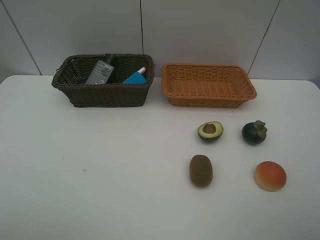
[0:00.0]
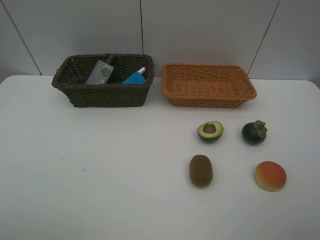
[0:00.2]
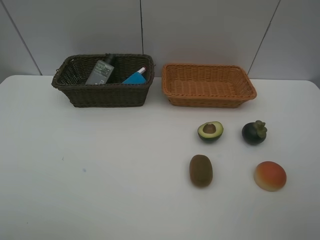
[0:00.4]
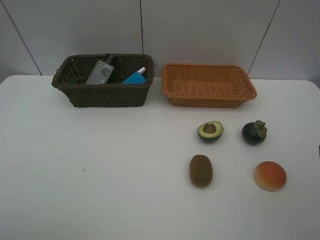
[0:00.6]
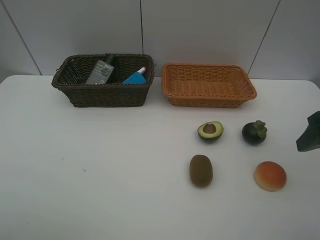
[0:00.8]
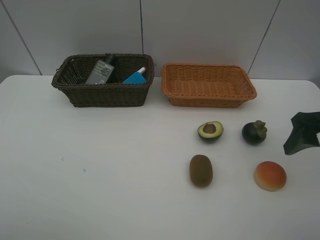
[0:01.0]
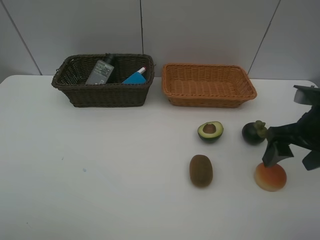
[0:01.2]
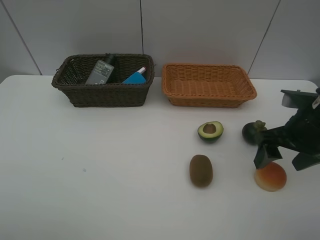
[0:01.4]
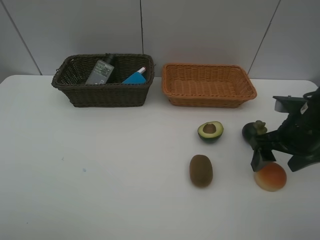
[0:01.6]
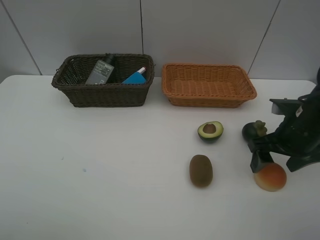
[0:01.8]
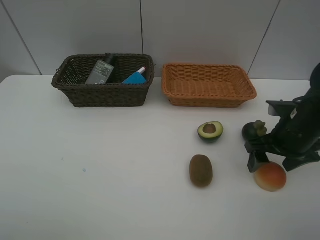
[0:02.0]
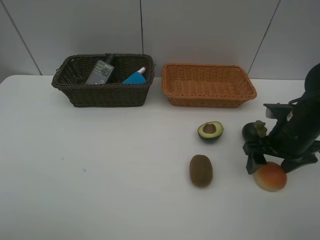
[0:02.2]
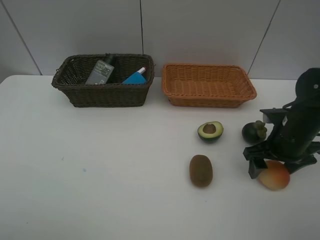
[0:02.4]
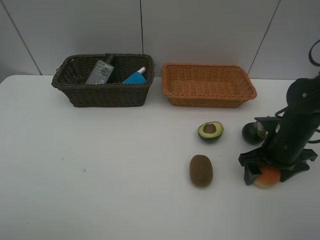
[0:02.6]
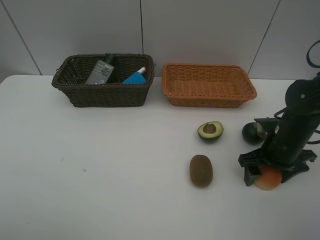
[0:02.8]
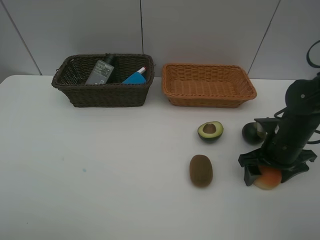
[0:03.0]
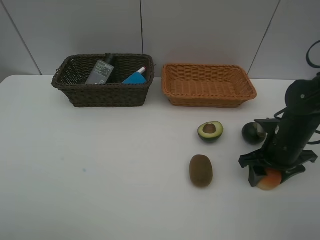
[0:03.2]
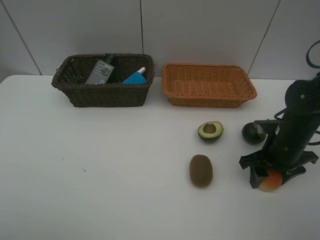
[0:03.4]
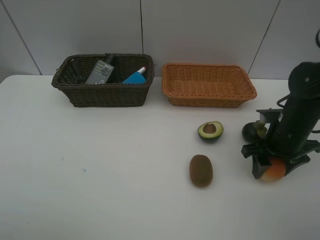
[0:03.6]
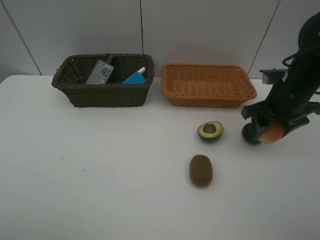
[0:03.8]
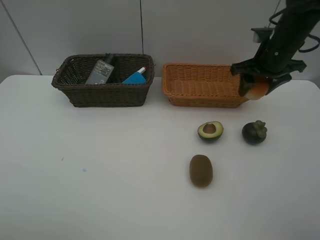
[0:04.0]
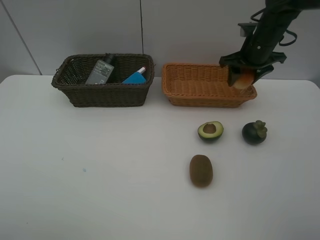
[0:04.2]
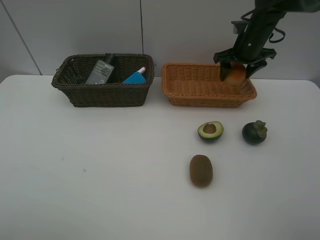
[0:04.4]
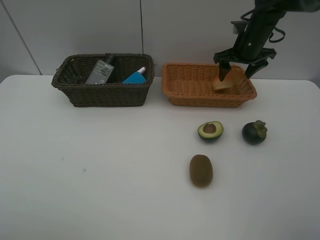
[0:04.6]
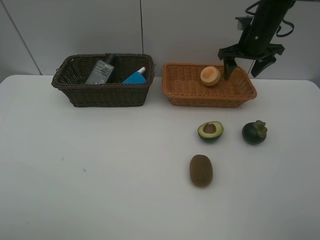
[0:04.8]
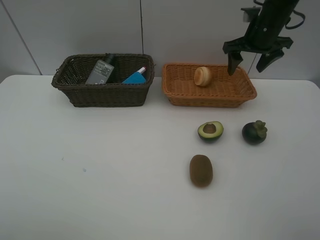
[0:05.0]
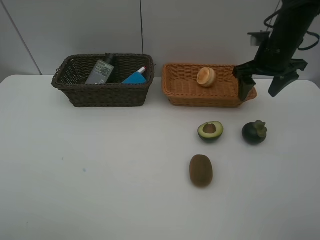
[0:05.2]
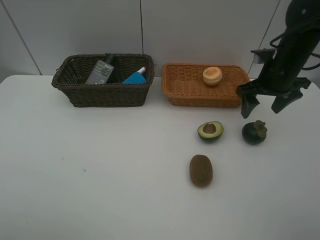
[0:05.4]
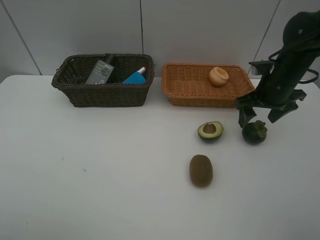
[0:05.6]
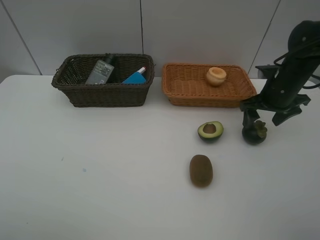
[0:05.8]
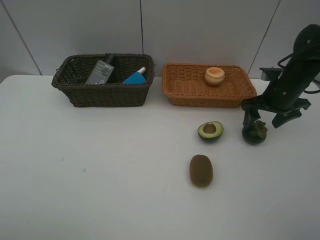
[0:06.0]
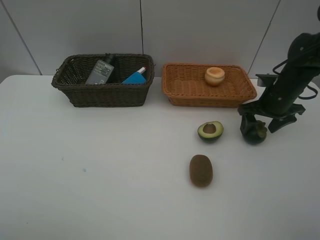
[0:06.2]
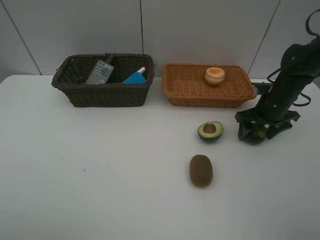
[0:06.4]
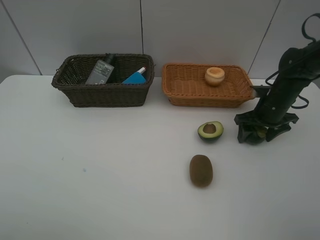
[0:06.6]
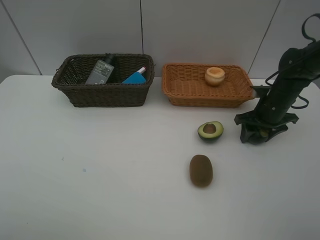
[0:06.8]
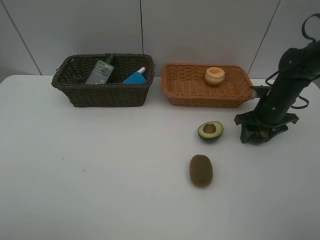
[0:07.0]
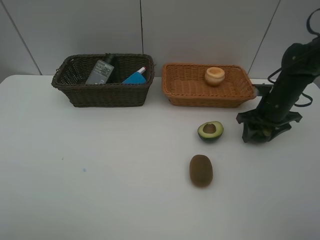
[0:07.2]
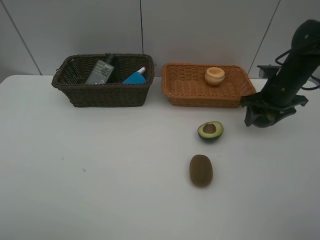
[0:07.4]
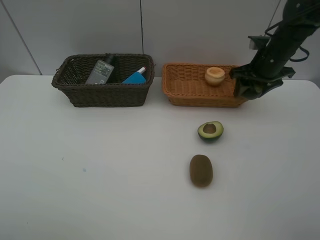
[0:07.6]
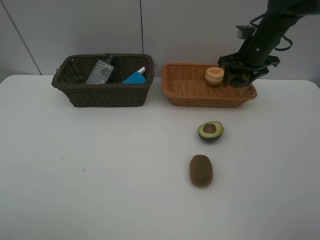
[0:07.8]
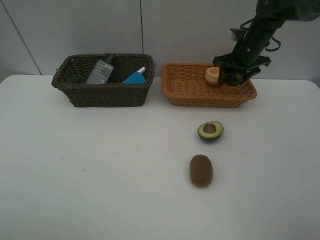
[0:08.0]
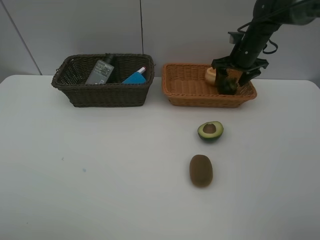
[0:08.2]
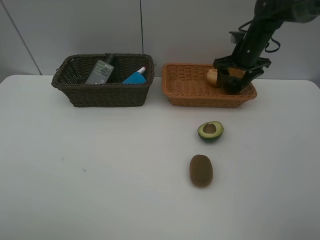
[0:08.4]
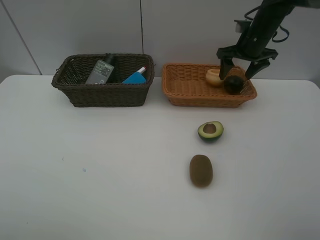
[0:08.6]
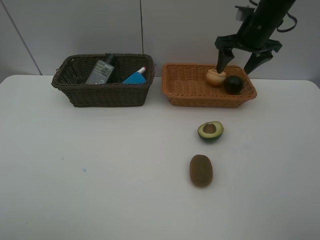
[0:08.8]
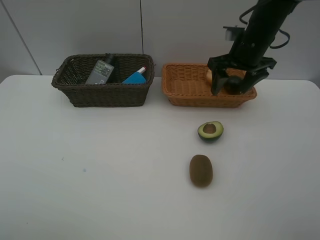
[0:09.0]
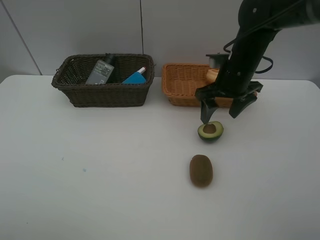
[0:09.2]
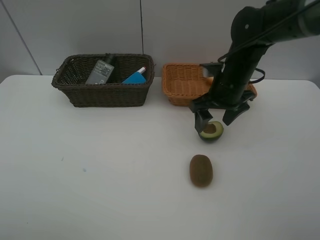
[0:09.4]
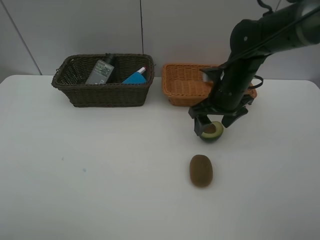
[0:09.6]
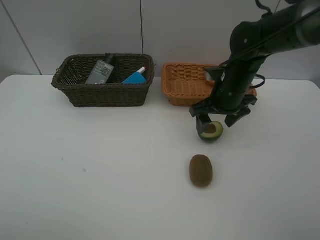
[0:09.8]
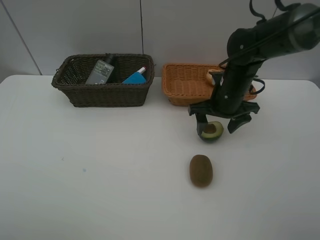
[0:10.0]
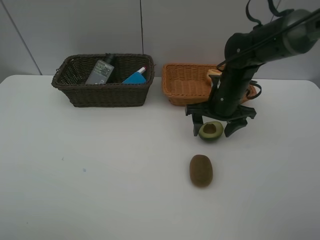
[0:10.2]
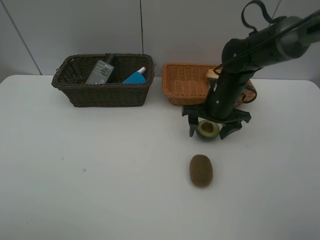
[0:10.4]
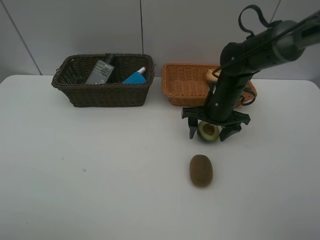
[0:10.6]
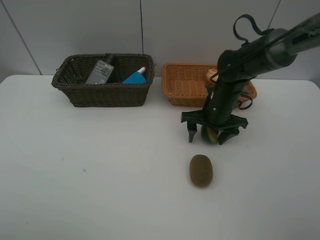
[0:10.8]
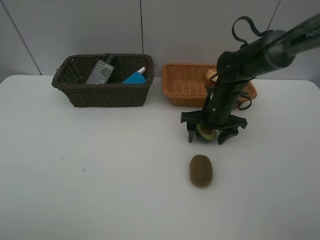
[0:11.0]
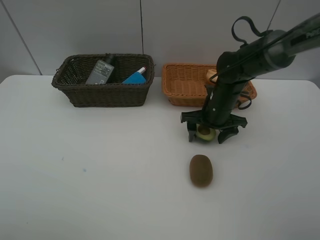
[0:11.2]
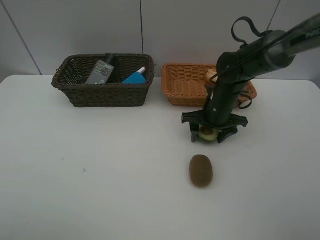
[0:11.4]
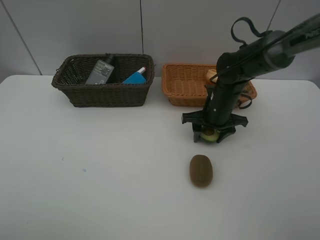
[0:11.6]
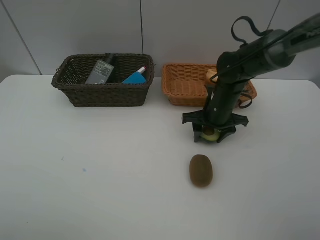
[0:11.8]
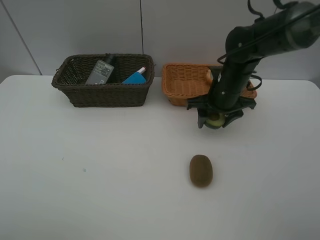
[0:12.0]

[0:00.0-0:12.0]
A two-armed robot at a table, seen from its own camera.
Task of the whole recording: Place multiple objects separately in different baskets.
Step, 0:00.0 to 0:03.6: Pick up egg yolk pastry with right gripper.
Step, 0:03.8 to 0:04.6: Place the egg yolk pastry in the light basket with right gripper.
Step, 0:04.8 to 0:07.2: Pick up the mangosteen with right gripper.
Step, 0:07.4 to 0:08.4: Place the mangosteen in the light basket with right gripper.
Step, 0:08.6 to 0:11.8: Pick up the avocado with right gripper.
0:00.0 to 0:01.6: The right gripper shifts about 25 cm forward and downward.
0:01.6 to 0:03.0: The right gripper is displaced downward by about 5 cm.
0:03.0 to 0:04.4: The right gripper is displaced forward and upward by approximately 25 cm, and closes, then opens again.
0:04.4 to 0:06.0: The right gripper goes roughly 15 cm backward, downward and to the right.
0:06.0 to 0:07.6: The right gripper travels forward and upward by approximately 10 cm, and closes its fingers.
0:07.6 to 0:09.0: The right gripper moves to the left, some 5 cm, and opens its fingers.
0:09.0 to 0:10.4: The right gripper heads downward, covering some 10 cm.
0:10.4 to 0:12.0: The right gripper closes.

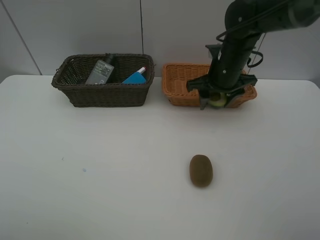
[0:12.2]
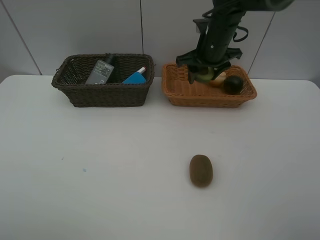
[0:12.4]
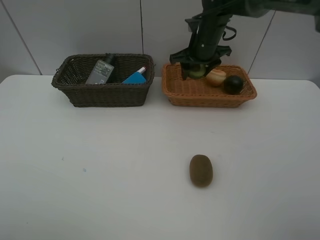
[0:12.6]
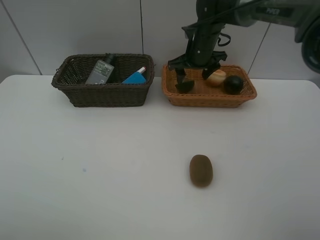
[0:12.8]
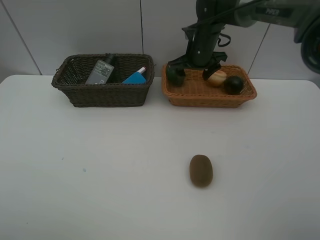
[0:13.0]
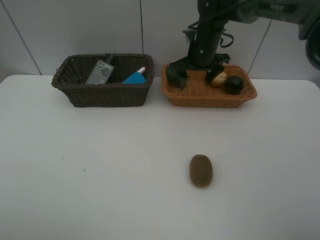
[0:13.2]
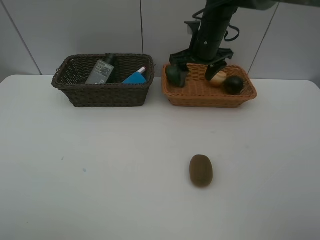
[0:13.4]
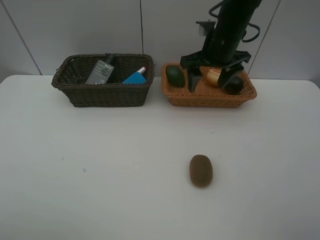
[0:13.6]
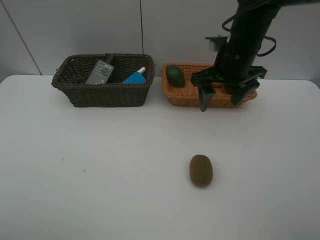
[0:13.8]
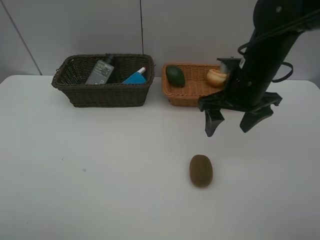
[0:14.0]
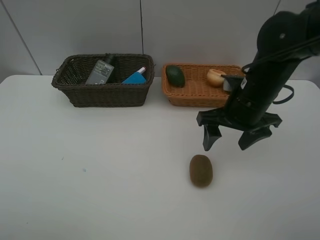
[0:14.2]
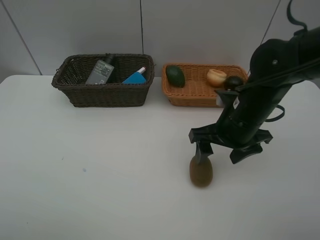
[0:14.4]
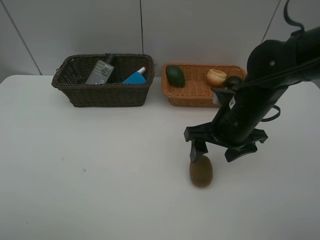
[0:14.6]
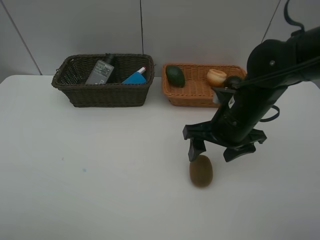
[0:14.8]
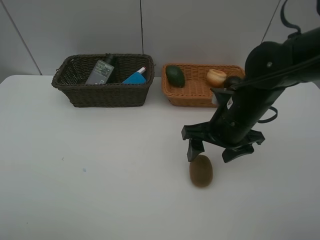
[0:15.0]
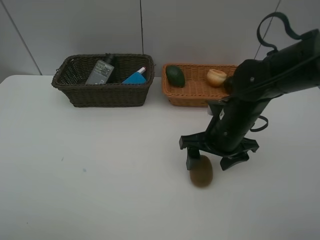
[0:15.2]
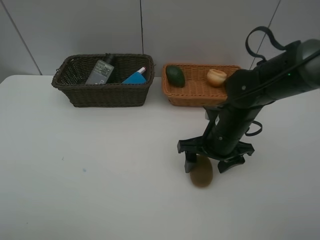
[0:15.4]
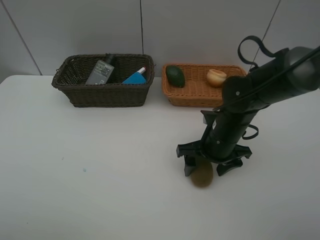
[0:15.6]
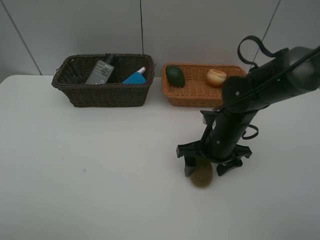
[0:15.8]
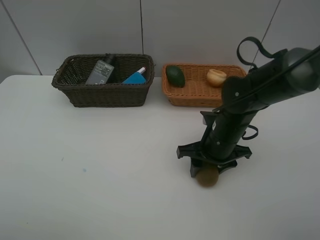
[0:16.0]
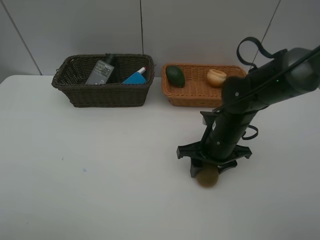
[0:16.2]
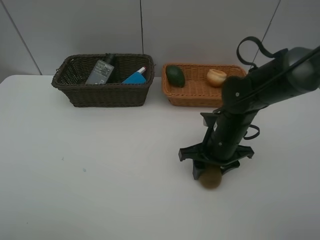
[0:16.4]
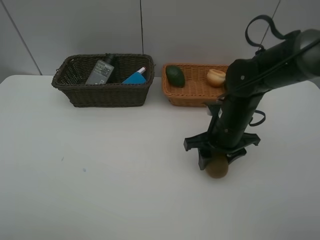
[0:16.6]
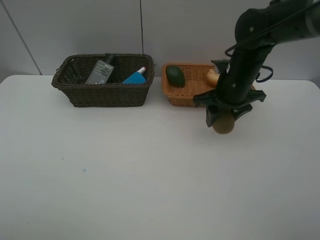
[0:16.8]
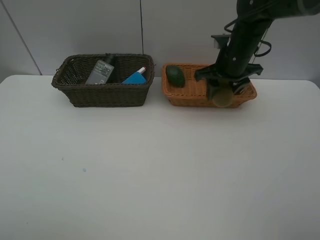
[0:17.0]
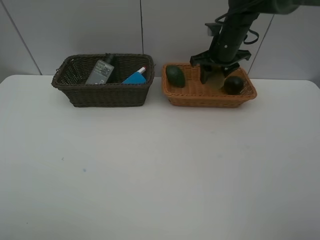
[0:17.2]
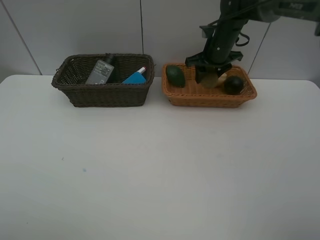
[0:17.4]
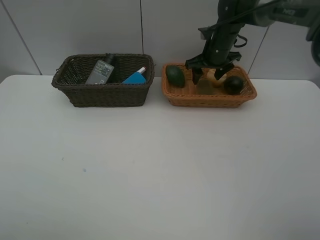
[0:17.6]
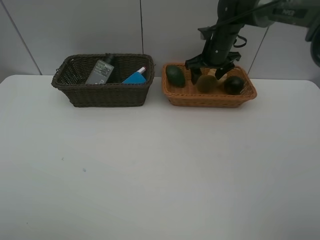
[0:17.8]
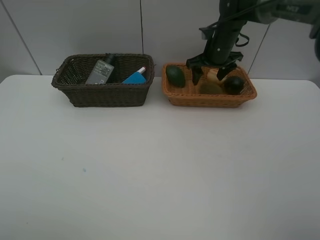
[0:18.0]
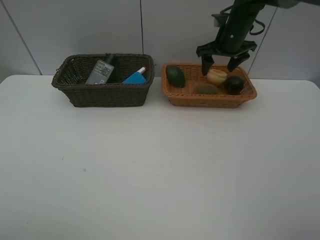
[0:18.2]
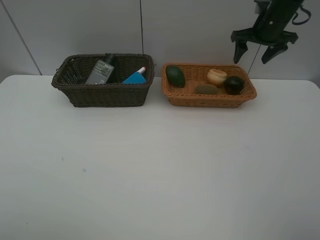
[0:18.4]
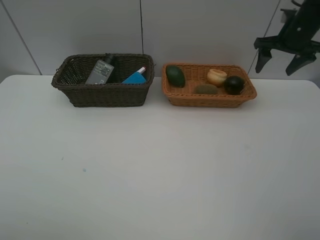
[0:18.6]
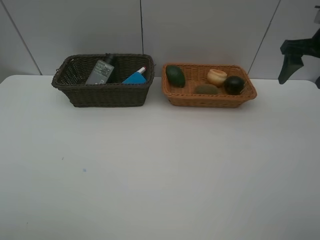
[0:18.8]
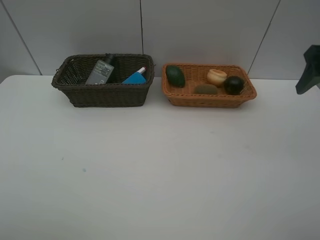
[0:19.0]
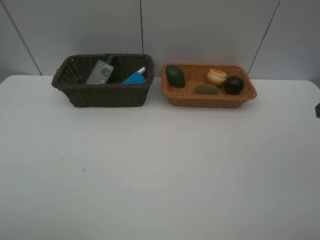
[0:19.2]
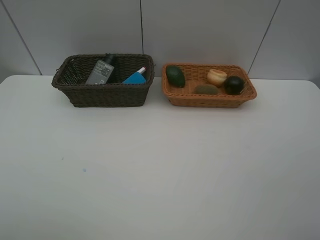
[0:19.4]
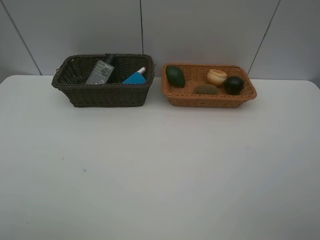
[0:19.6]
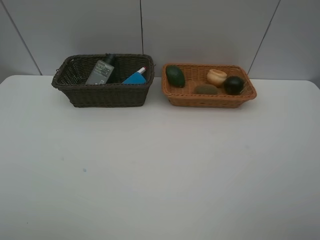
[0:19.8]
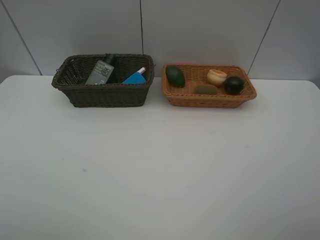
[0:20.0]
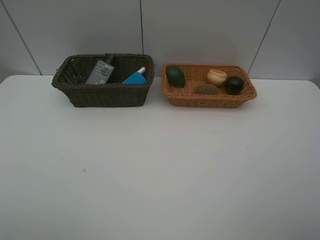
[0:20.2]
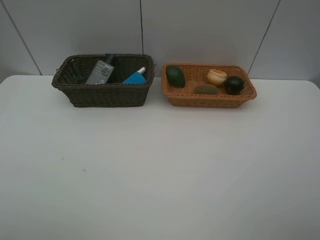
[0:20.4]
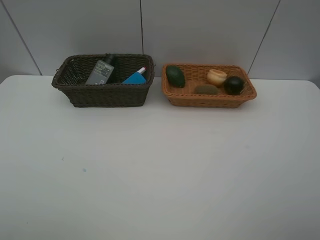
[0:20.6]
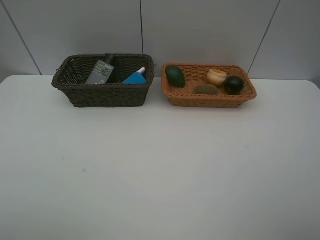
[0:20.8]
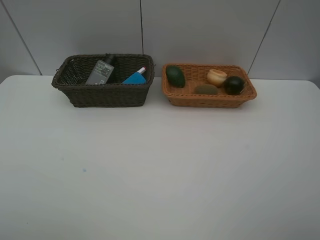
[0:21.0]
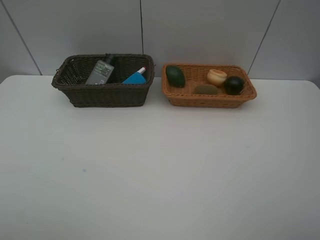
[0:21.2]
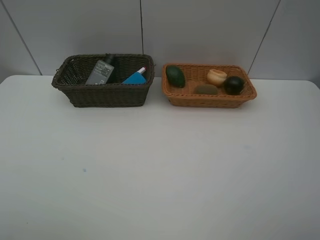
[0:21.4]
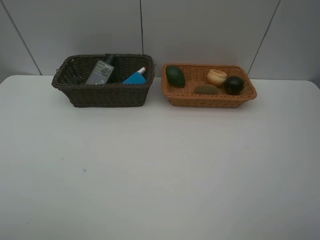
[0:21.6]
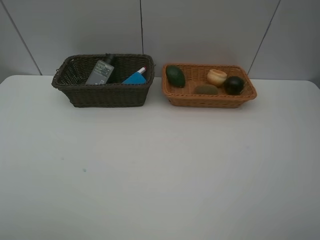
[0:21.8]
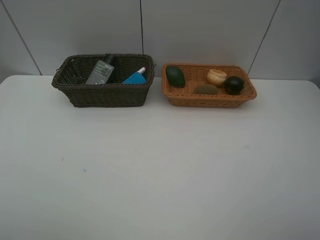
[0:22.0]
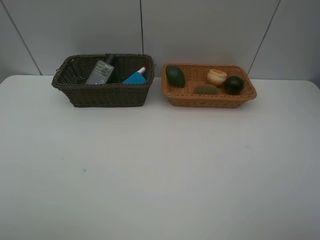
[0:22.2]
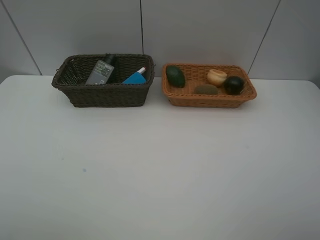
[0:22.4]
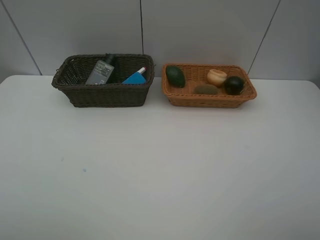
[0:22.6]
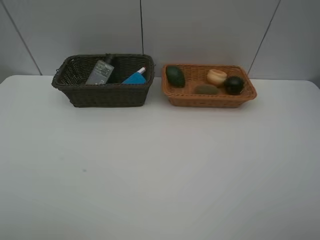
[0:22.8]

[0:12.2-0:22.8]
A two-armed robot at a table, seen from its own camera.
Task of the whole recording: Place multiple objects separately in different baskets.
Step, 0:12.2 to 0:13.0: Place the avocado in the light basket with right gripper.
Step, 0:13.2 to 0:16.6: Pick up kiwi with right gripper.
Step, 0:16.8 to 0:18.0: Place the kiwi in the light basket with right gripper.
0:12.2 to 0:13.8: The right gripper heads backward, covering some 5 cm, and opens up.
0:13.8 to 0:15.2: The right gripper moves downward and backward, about 15 cm.
0:15.2 to 0:16.8: The right gripper moves forward and upward, roughly 10 cm, and closes its fingers.
0:16.8 to 0:18.2: The right gripper moves forward, roughly 15 cm, and opens its fingers.
0:18.2 to 0:19.8: The right gripper heads backward, covering approximately 50 cm.
0:21.2 to 0:22.8: Neither gripper changes place.
